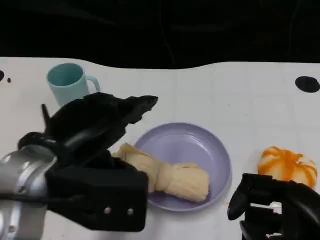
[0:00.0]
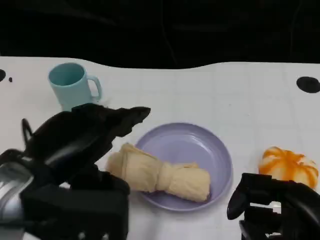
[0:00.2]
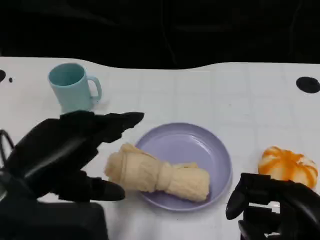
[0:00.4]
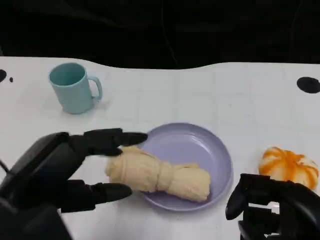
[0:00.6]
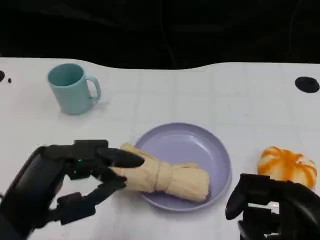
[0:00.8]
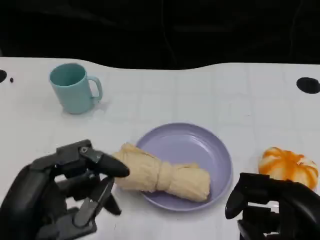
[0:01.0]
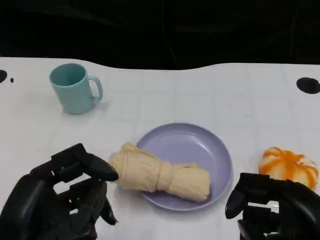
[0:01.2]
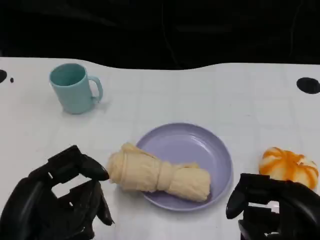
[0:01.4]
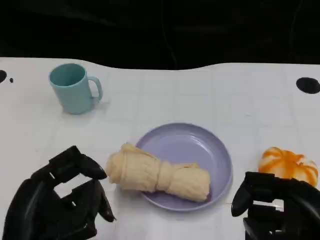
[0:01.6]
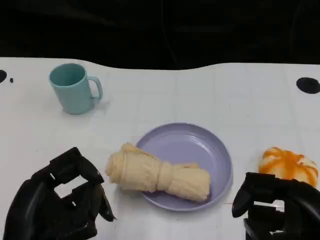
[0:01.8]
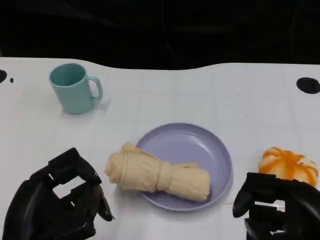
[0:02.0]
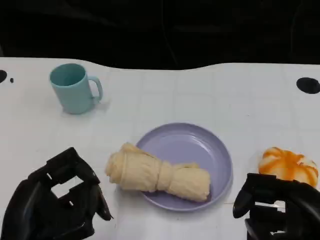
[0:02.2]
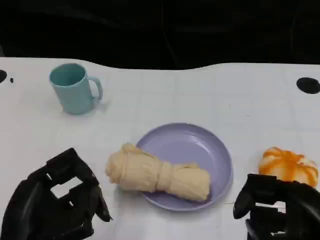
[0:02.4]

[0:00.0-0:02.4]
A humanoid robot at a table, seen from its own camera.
Task of the whole recording: Grasp the towel on the left side of the plate with the left hand and place it into the plate.
0:00.0 to 0:01.2: The left hand is displaced backward and downward by some 10 cm.
0:01.2 to 0:02.4: The hands stay close to where they were, moving slightly.
